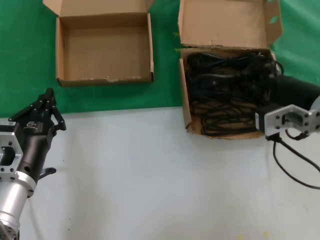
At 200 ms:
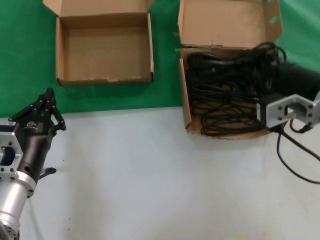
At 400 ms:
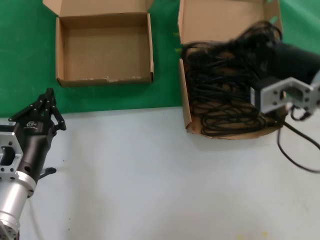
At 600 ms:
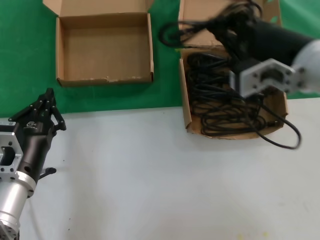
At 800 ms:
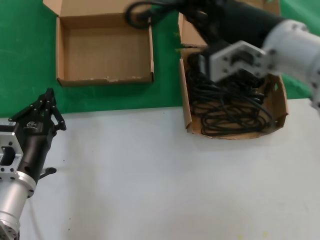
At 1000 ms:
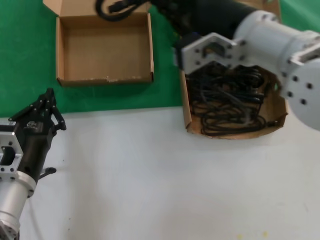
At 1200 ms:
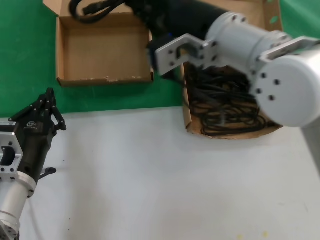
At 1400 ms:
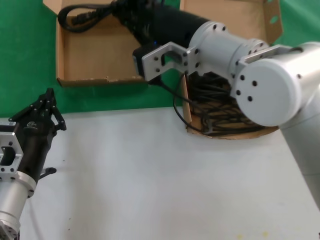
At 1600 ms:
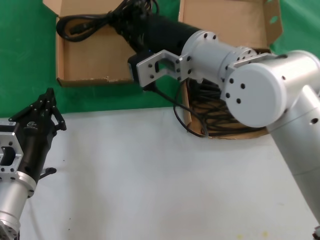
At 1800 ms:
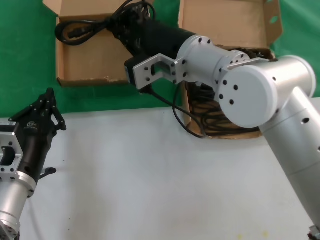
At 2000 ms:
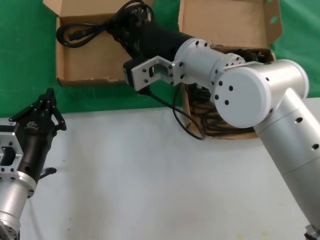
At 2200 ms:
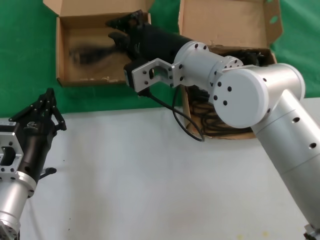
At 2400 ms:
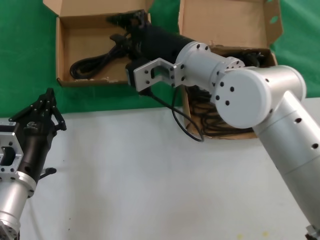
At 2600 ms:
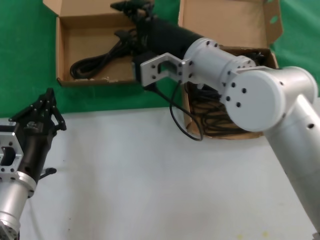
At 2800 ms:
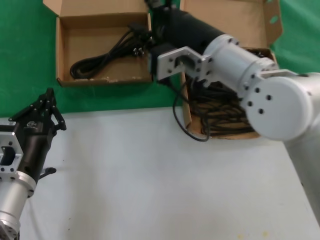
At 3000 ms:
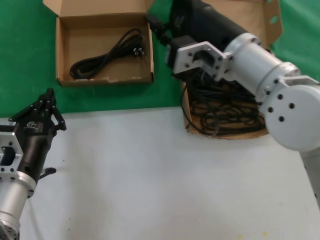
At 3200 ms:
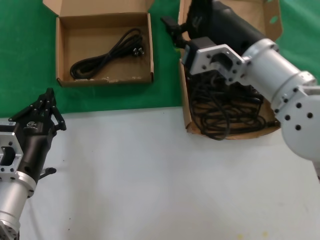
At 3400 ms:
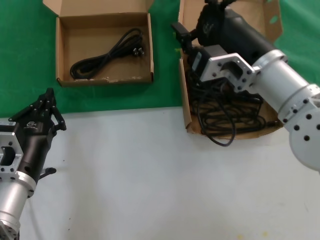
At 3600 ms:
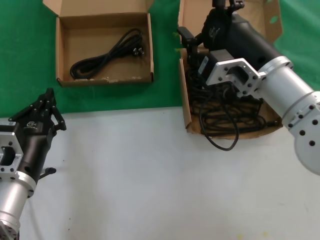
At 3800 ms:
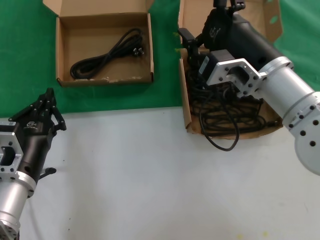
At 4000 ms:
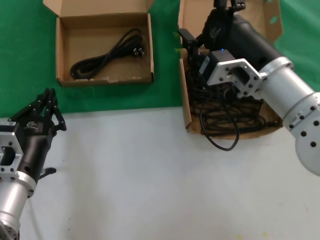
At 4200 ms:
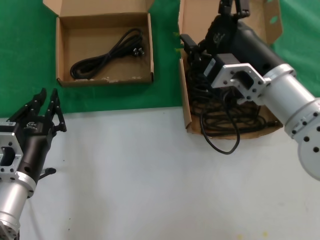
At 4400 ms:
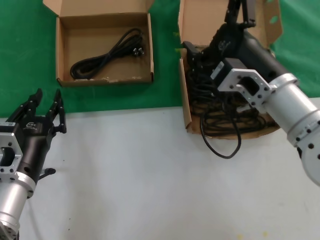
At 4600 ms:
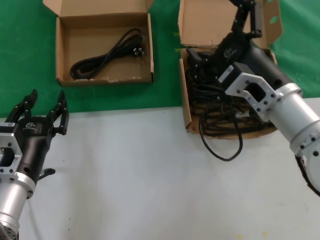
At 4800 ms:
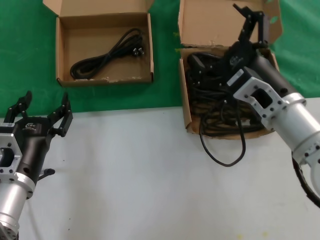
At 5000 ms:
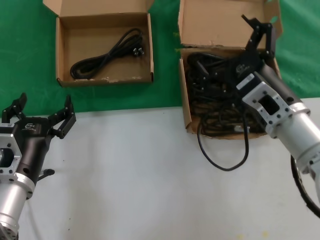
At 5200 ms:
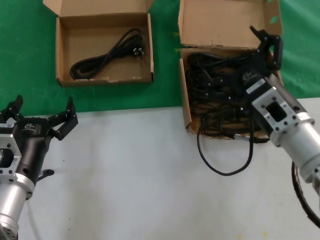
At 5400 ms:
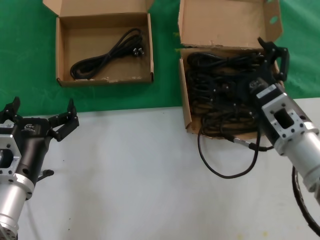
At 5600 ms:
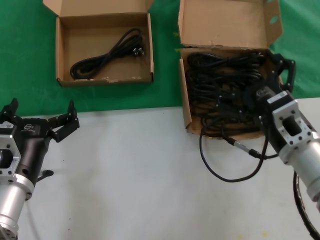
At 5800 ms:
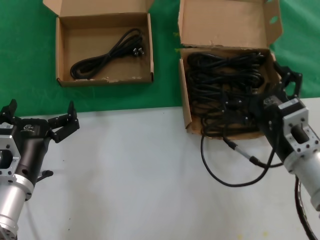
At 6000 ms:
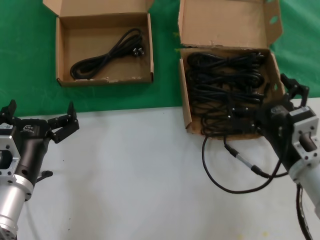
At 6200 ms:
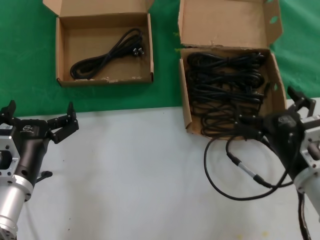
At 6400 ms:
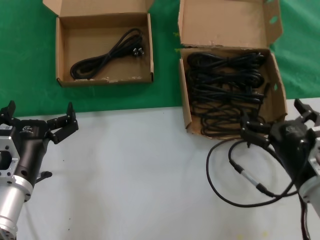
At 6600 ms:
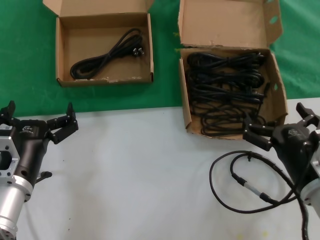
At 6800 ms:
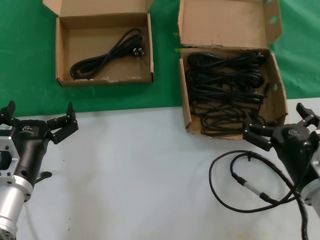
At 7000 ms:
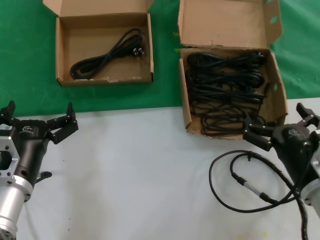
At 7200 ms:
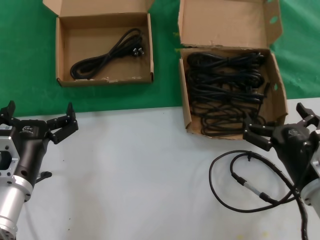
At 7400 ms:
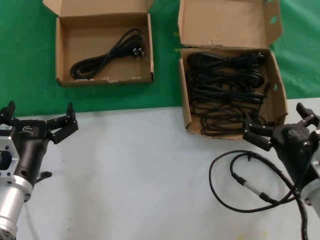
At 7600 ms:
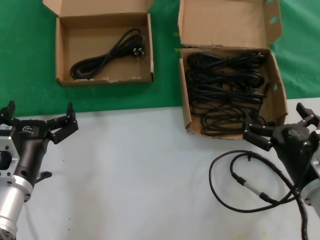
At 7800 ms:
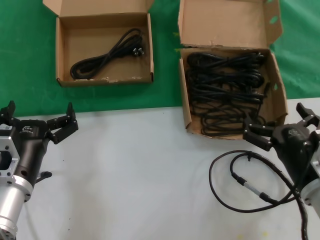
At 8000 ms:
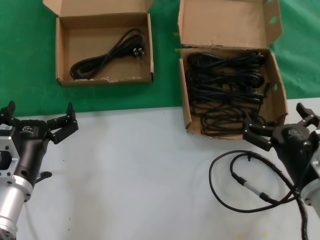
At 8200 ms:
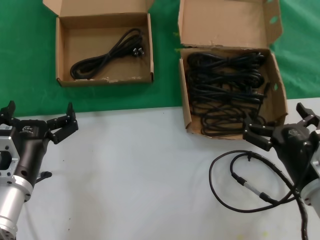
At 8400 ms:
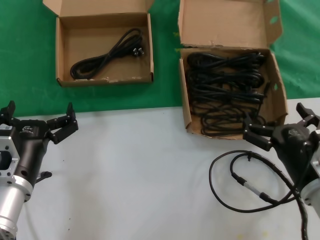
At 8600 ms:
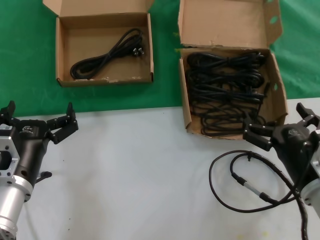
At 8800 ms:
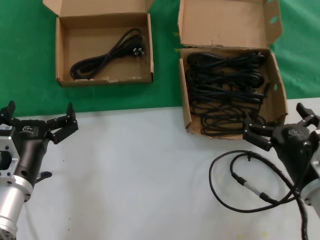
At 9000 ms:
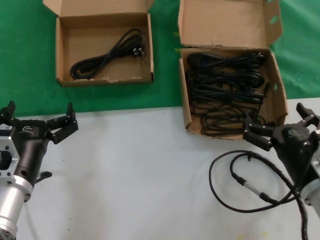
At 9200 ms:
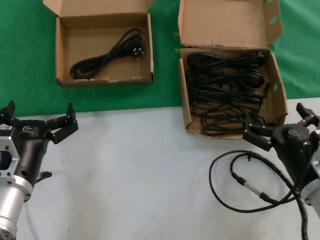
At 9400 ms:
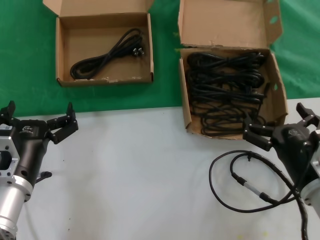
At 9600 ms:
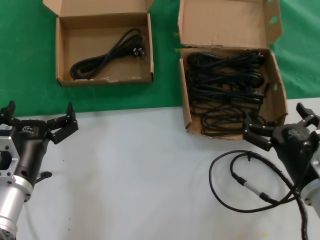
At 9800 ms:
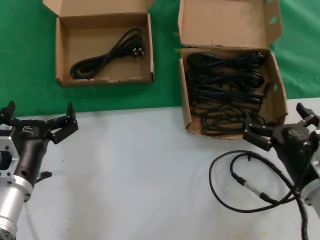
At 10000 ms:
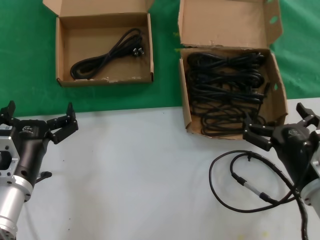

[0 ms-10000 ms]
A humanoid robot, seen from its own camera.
Task of the whole recording: take the parts from the box containing them and put them into an empty box.
Step, 0 ms to 2200 ms: Place the data cable in the another box.
0 ms to 1400 ms: The right hand goes about 20 cm to the left and upward.
2800 ms to 4200 ms: The right hand goes approximately 10 cm to the right.
4200 ms to 5800 ms: The right hand goes roughly 15 cm downward, to the right and backward.
5800 ms to 7200 ms: The right hand ends up some 5 cm from where it was.
7200 ms to 10000 ms: Neither hand changes place.

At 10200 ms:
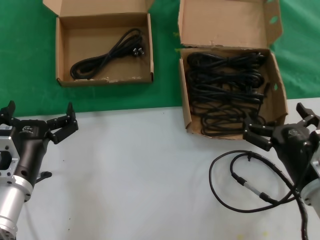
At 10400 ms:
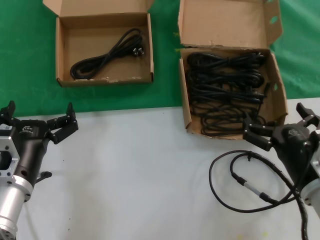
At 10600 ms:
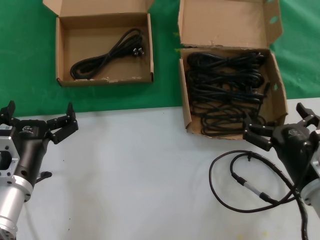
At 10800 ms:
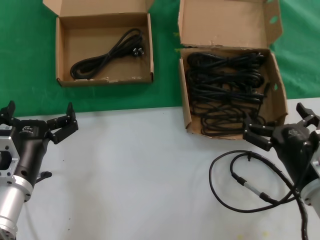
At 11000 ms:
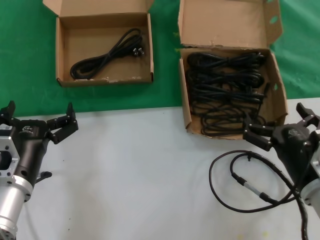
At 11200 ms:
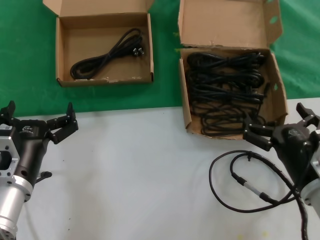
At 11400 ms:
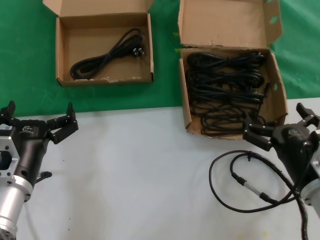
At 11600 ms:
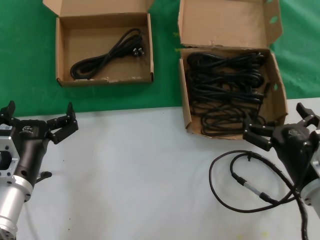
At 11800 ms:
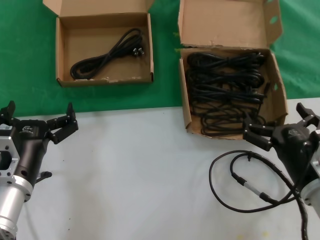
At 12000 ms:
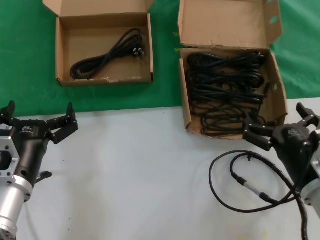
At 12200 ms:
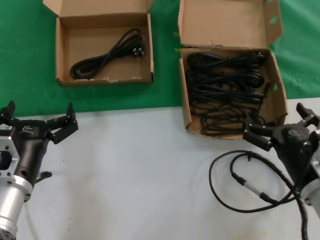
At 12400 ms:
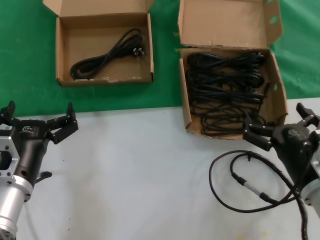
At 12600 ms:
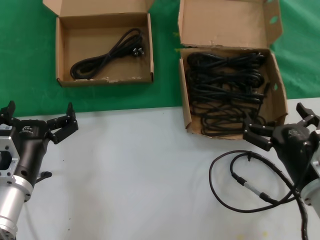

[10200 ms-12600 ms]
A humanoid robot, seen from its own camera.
Task of the whole recording: take the parts from the box containing them and put them into an empty box.
10200 ms to 12600 ms: Both hands stay put.
